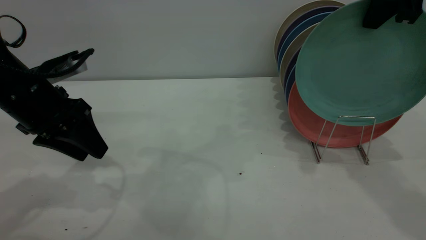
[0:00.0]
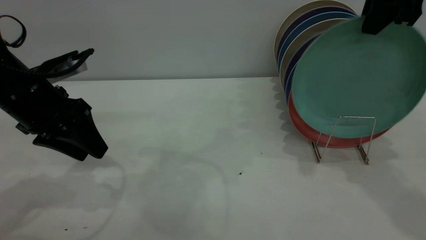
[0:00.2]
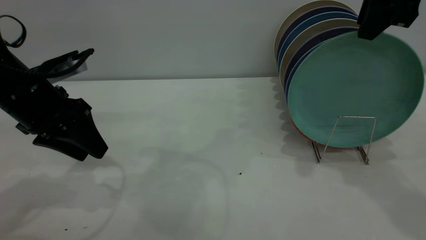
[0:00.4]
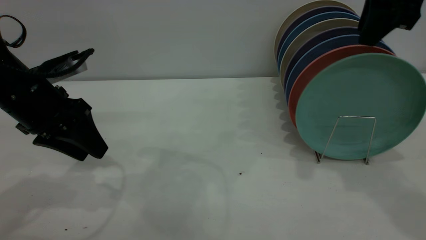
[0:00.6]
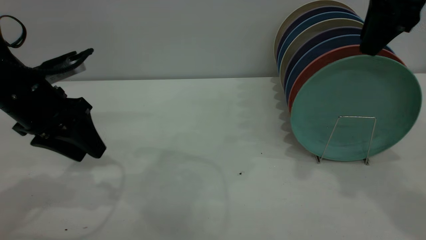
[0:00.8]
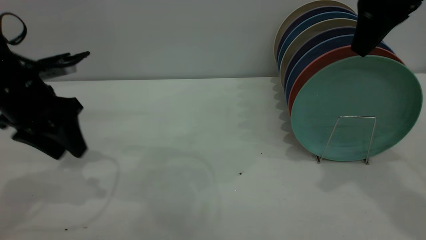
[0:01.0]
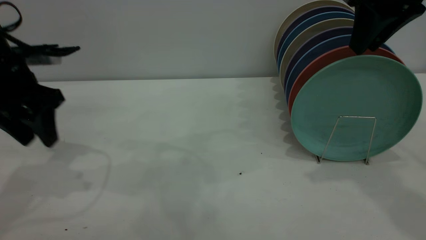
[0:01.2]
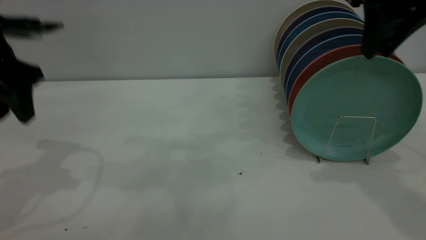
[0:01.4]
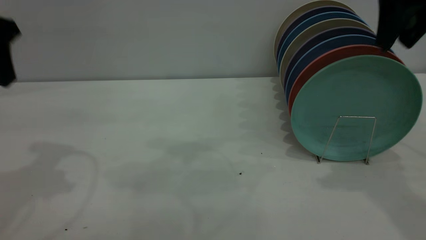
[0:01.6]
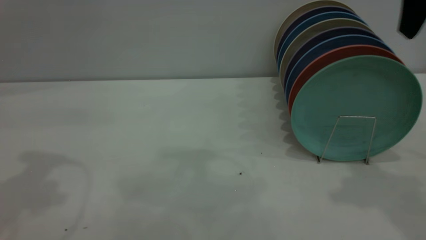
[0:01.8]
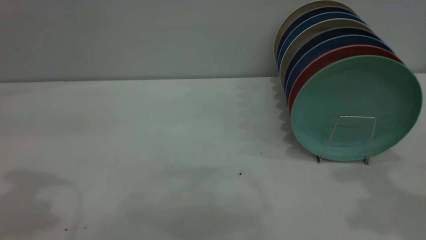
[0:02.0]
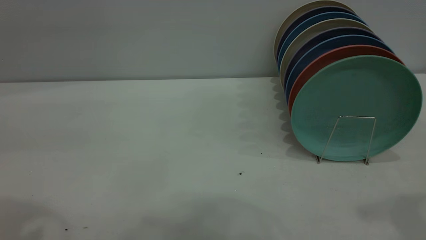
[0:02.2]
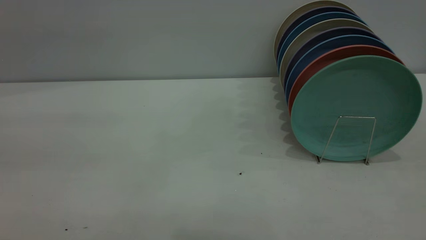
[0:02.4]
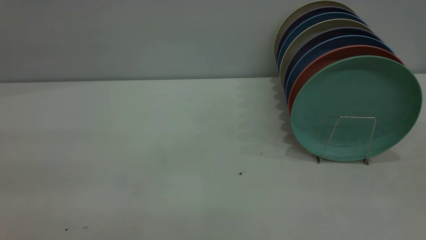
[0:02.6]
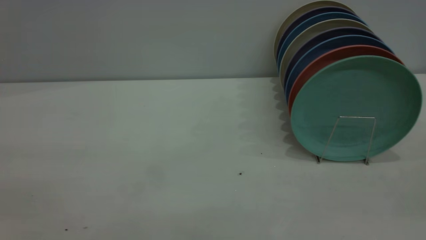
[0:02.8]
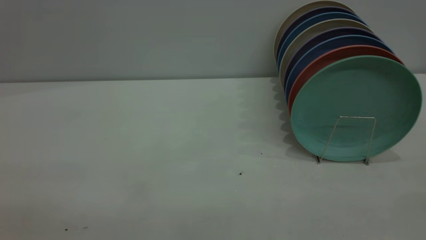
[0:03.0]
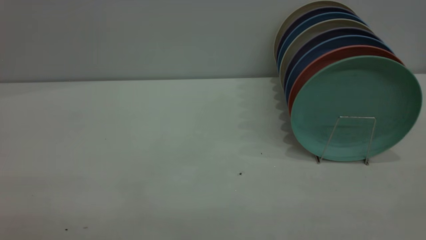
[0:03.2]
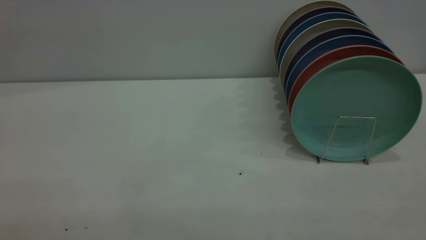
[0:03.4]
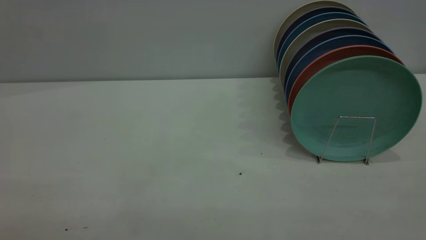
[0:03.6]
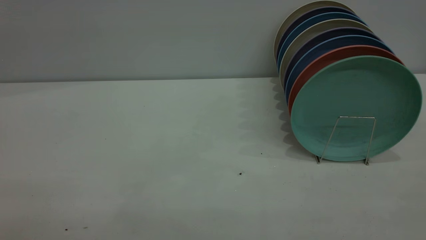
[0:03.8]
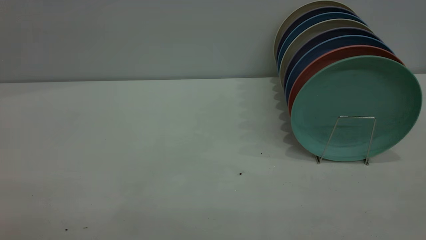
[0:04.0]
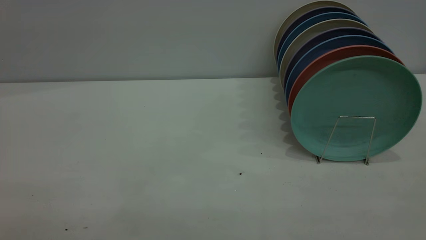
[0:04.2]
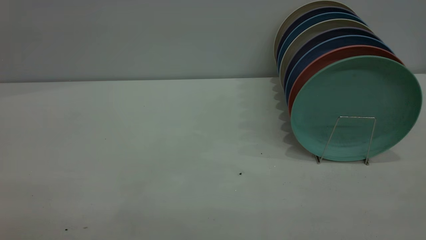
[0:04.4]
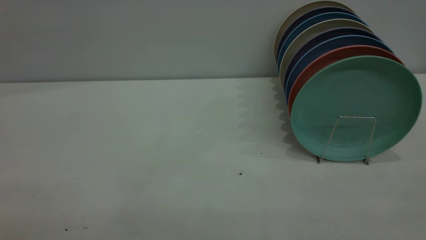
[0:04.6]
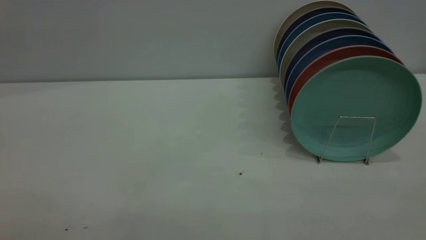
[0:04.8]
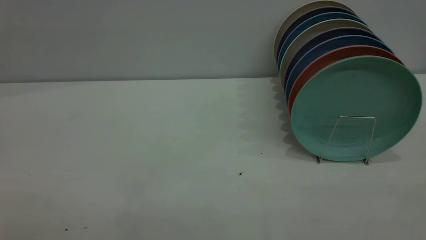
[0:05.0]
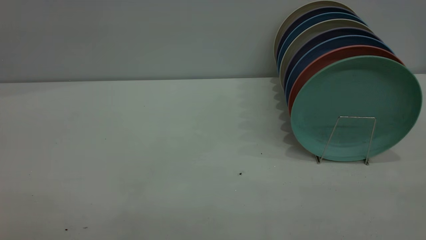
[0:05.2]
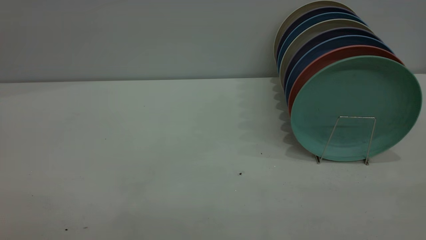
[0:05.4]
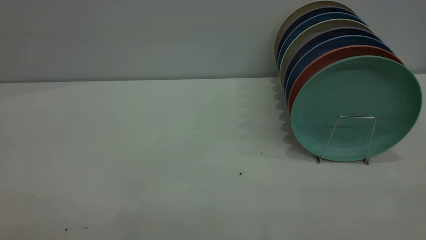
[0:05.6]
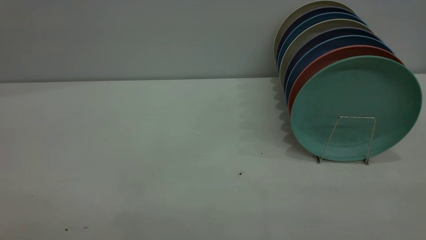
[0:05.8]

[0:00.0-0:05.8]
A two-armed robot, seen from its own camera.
Task of the whole recording: the left gripper grasp the green plate, the left gripper pass the green plate to the right gripper, and the right gripper place the green plate on the plate rack.
0:00.0 to 0:01.4: The right gripper opens up. Meanwhile the left gripper goes roughly 10 cm upward.
0:01.4 to 0:02.8: Both grippers move backward, some 30 cm. The right gripper opens.

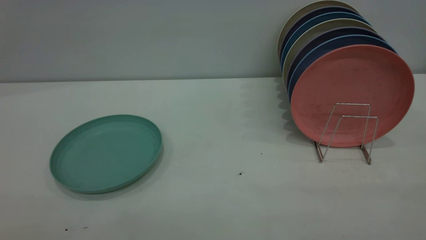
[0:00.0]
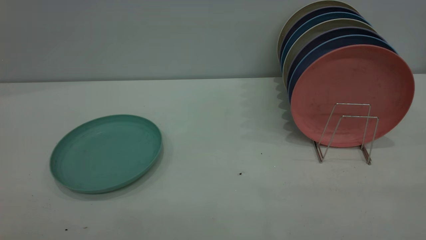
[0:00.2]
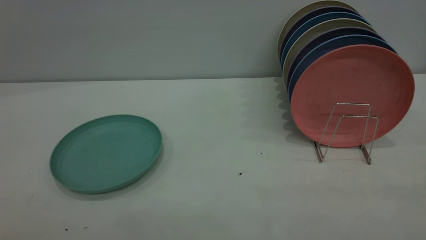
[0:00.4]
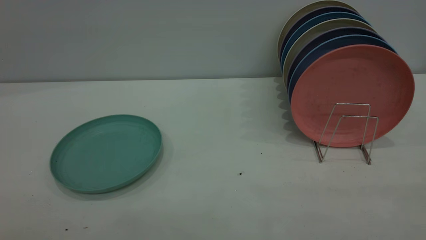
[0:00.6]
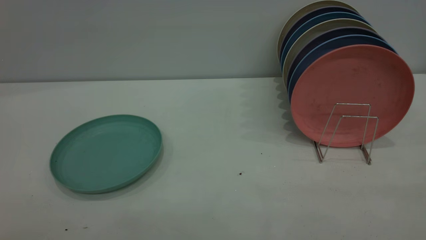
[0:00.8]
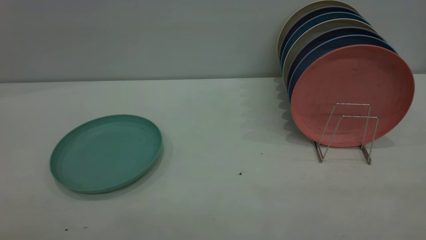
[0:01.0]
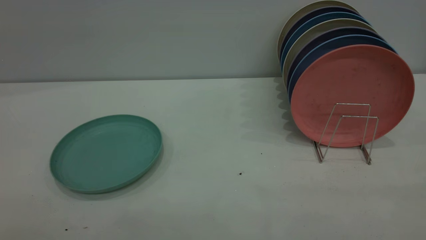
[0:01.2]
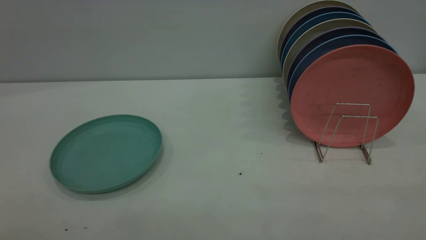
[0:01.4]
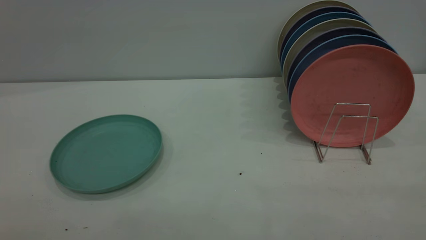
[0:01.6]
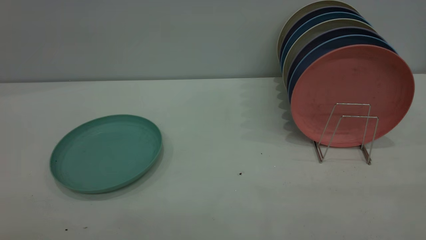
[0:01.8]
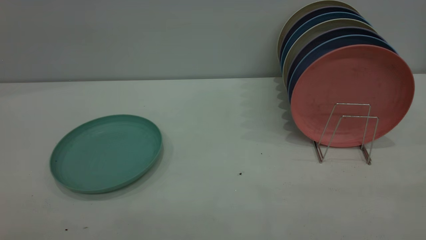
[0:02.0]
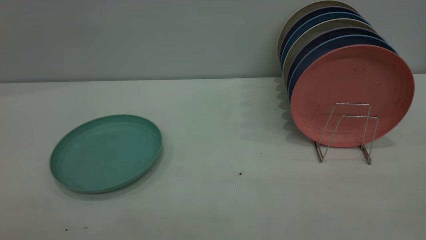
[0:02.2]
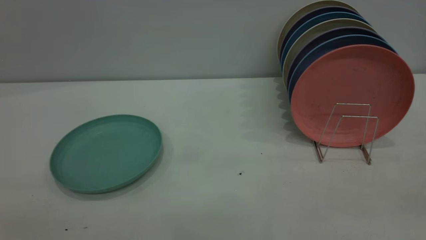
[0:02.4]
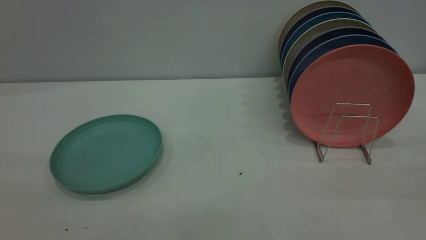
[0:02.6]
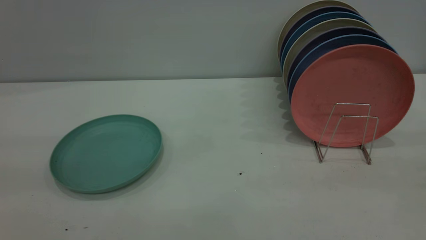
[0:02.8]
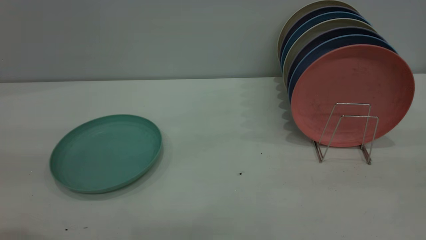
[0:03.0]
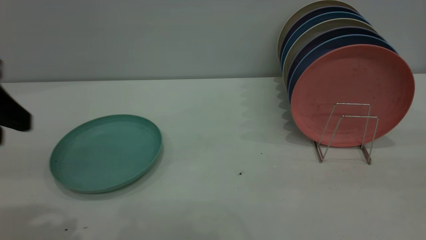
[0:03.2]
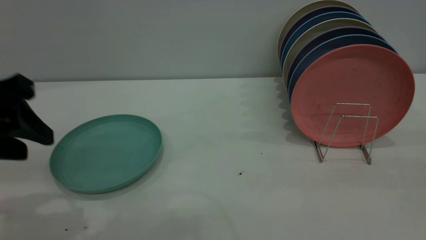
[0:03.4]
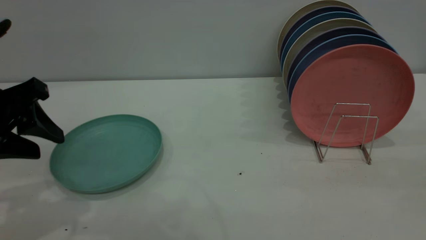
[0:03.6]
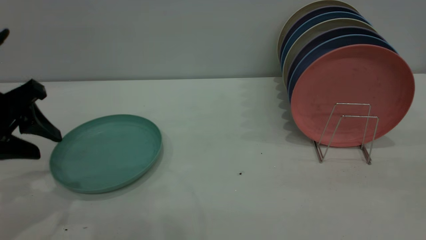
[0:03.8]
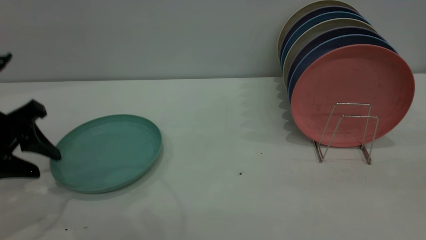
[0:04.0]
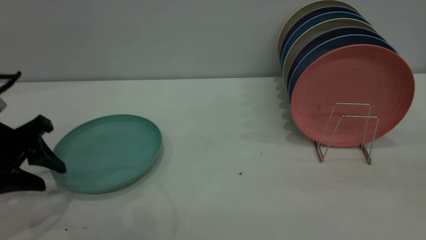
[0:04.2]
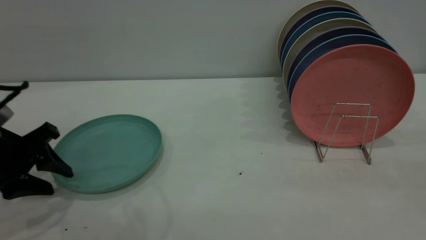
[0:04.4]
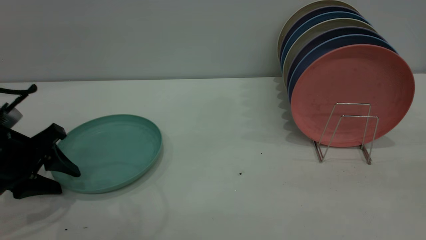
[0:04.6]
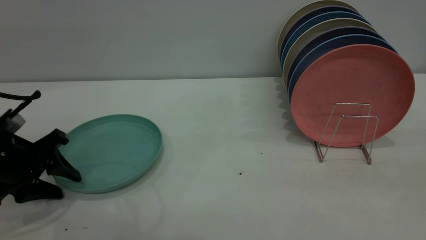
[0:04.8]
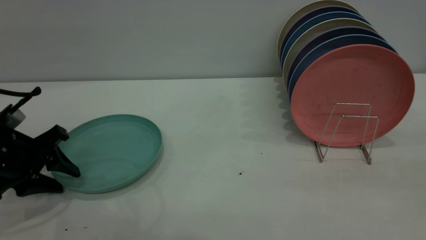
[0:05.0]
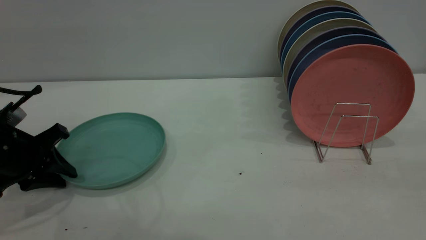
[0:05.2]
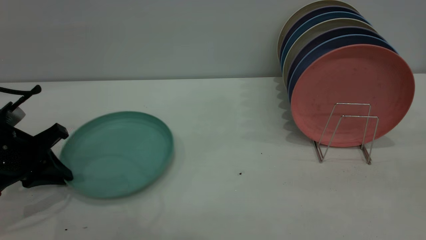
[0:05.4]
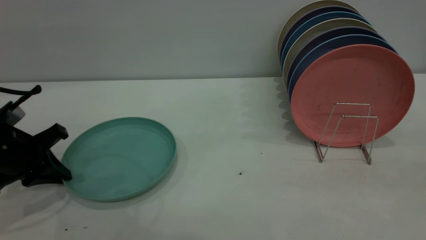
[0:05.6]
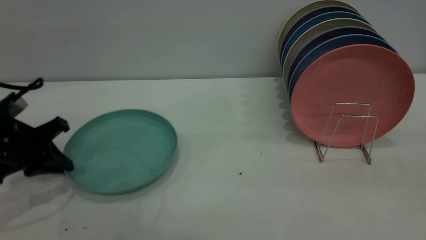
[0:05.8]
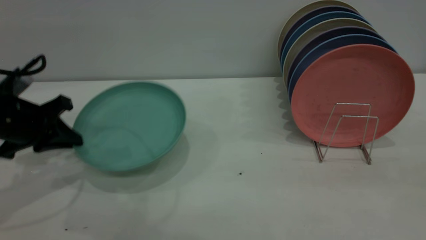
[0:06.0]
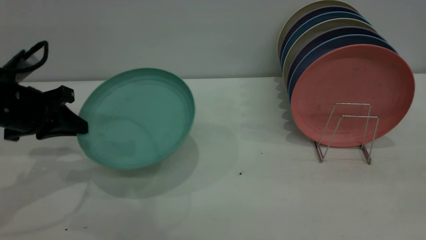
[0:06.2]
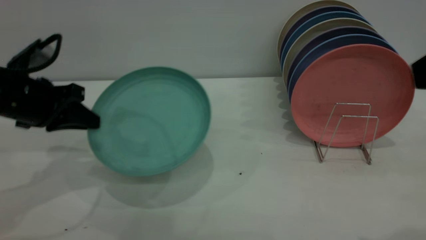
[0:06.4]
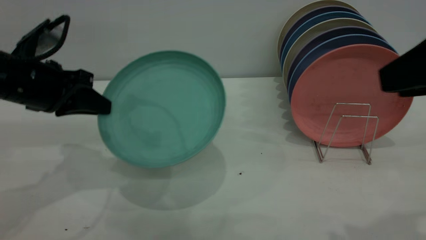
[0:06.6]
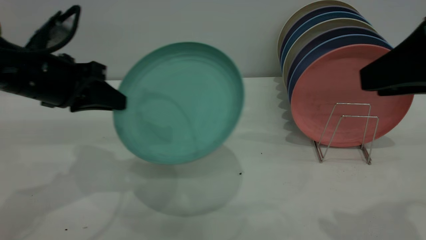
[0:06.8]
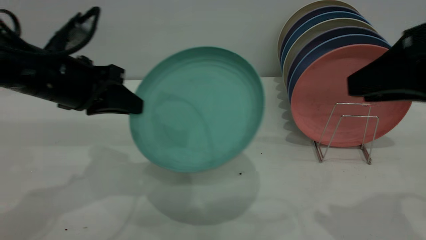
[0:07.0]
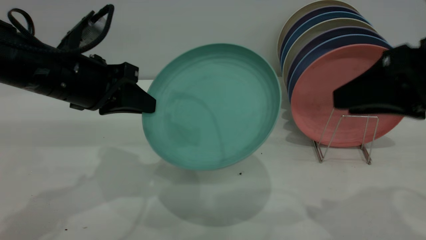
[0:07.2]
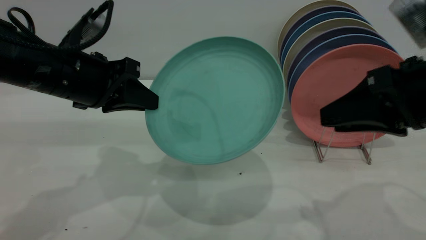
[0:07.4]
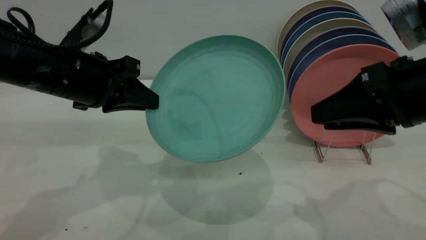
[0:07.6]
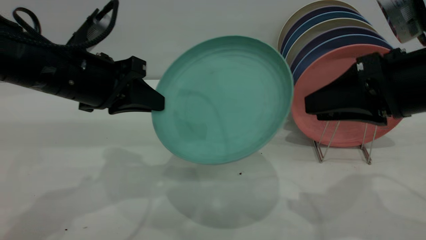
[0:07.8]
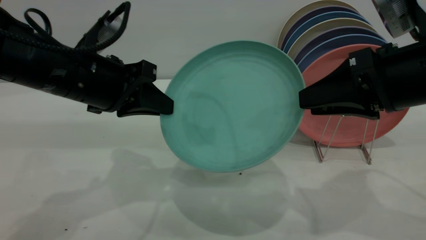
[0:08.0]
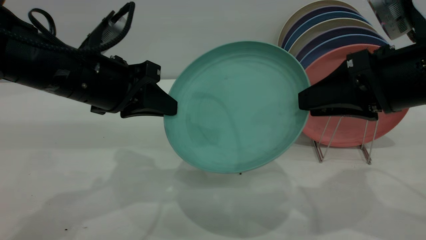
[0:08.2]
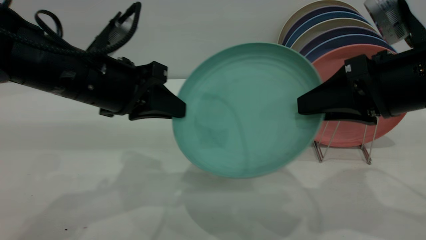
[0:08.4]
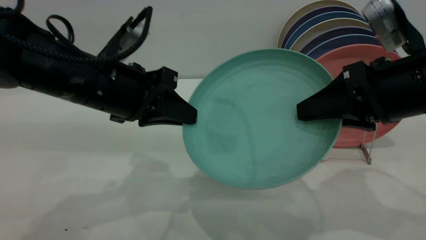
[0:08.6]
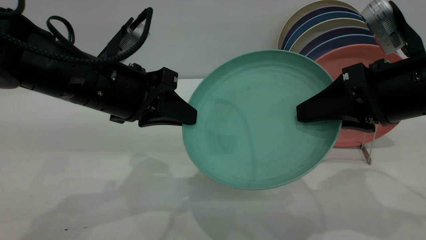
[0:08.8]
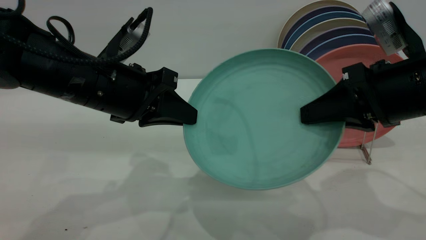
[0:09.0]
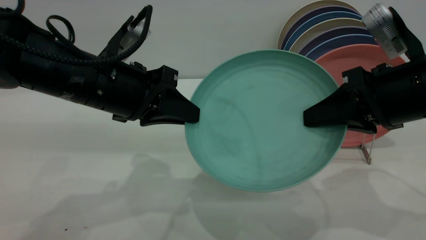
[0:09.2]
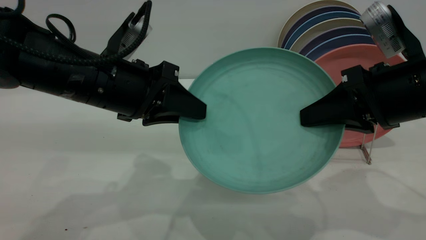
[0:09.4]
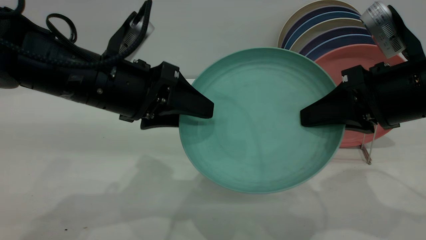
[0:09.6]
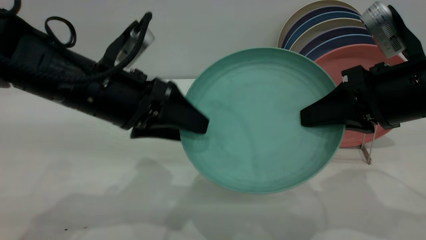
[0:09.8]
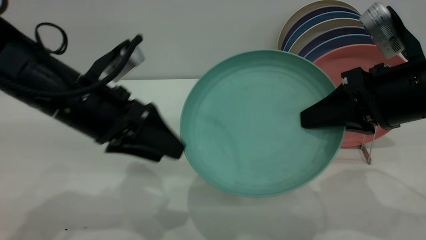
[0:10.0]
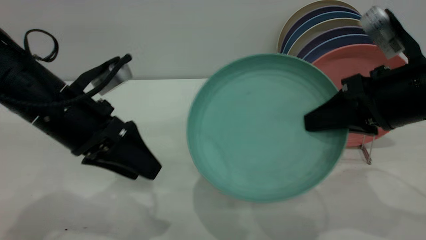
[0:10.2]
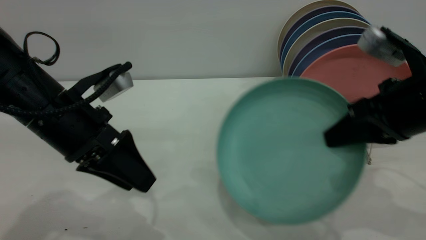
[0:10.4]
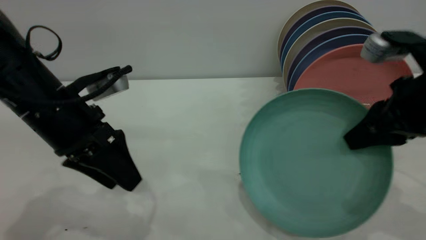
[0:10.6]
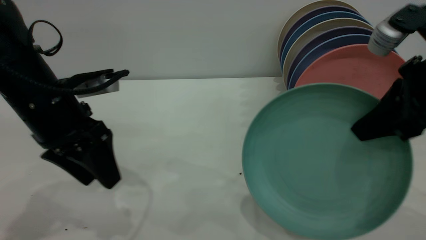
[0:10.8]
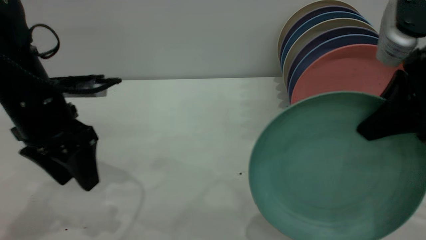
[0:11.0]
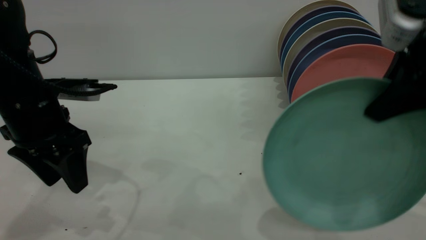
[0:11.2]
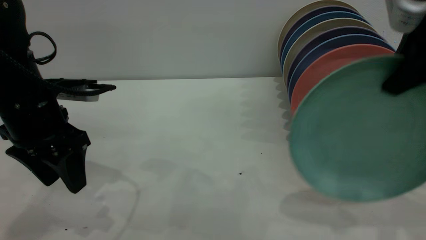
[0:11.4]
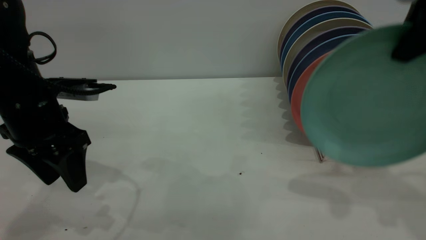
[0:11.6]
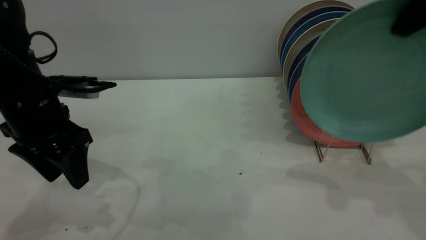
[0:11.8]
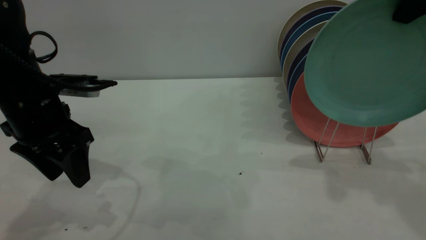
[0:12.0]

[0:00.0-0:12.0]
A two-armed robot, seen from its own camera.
Task of the whole recording: the left gripper grasp the green plate, the left gripper pass the green plate to the right gripper, and the right gripper place the green plate on the plate rack.
Step, 0:00.0 to 0:06.0: Pick up the plate with the left gripper.
Step, 0:06.2 to 0:10.0: Pass the plate from the left gripper to the right gripper.
0:00.0 to 0:01.6: Neither gripper changes place.
0:03.0 to 0:04.4: The left gripper travels downward and forward by some 20 cm.
0:04.4 to 0:06.0: The left gripper heads forward, covering some 5 cm, and closes.
0:06.0 to 0:07.6: The right gripper goes about 20 cm forward and downward. The left gripper moves to the right and upward, approximately 15 cm.
0:07.6 to 0:09.0: The left gripper moves some 5 cm, while the right gripper closes its fingers.
0:09.0 to 0:10.4: The left gripper opens its fingers.
0:10.4 to 0:12.0: The right gripper heads upward, covering about 15 cm.
